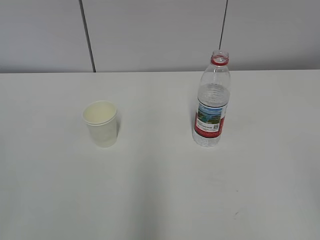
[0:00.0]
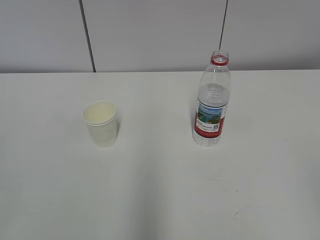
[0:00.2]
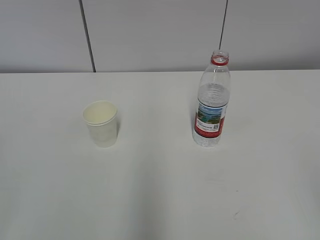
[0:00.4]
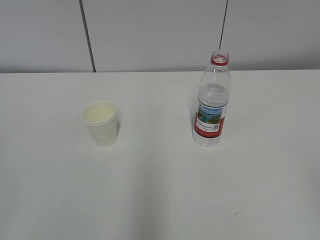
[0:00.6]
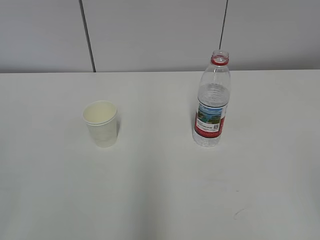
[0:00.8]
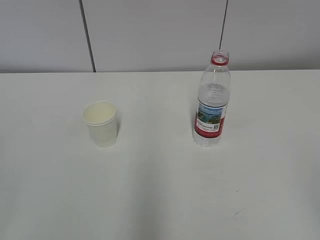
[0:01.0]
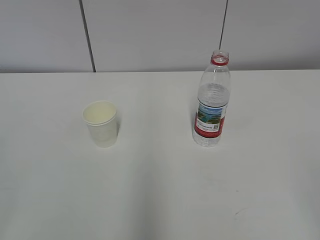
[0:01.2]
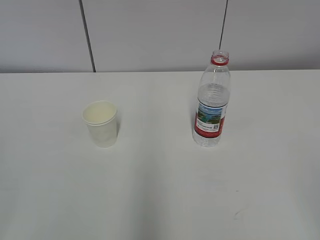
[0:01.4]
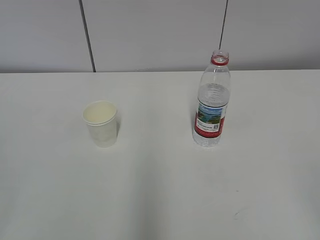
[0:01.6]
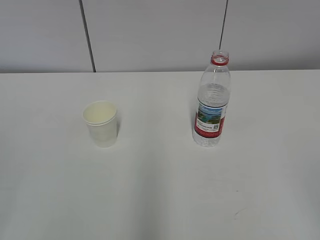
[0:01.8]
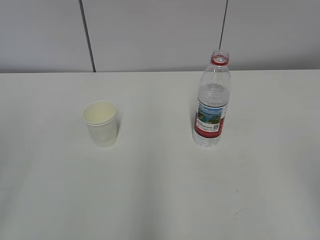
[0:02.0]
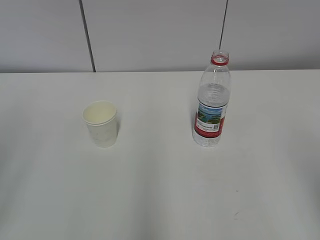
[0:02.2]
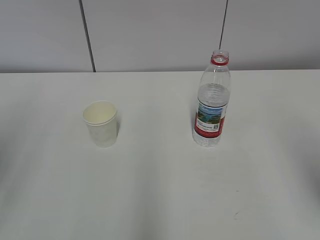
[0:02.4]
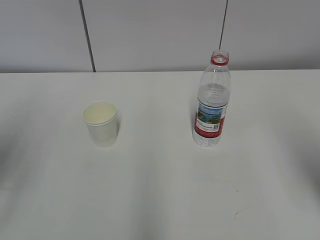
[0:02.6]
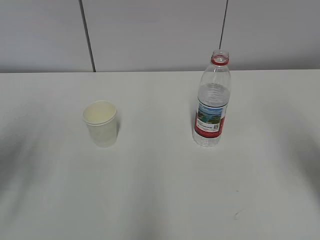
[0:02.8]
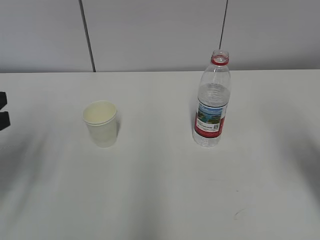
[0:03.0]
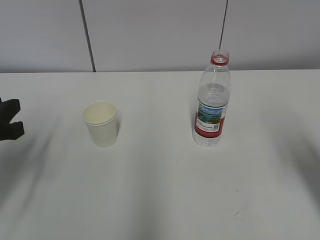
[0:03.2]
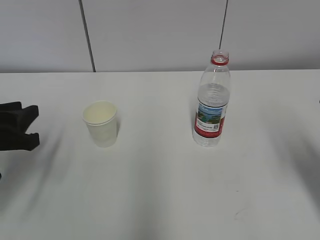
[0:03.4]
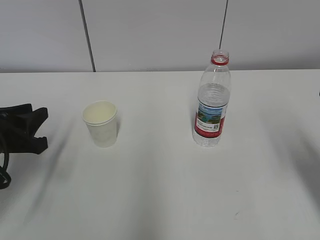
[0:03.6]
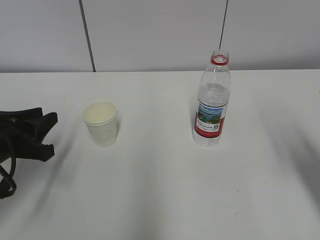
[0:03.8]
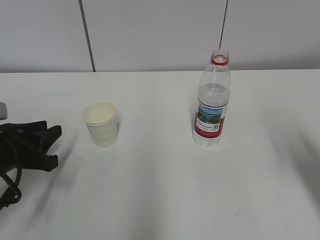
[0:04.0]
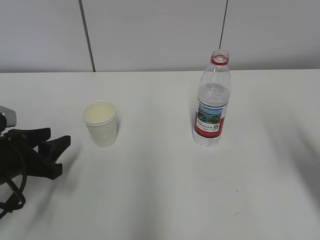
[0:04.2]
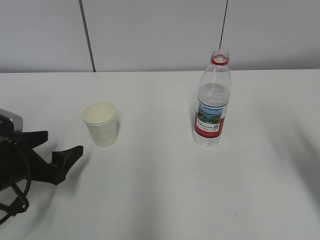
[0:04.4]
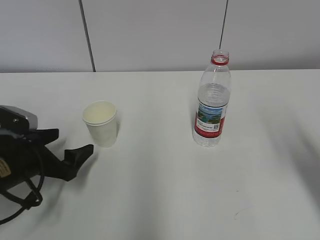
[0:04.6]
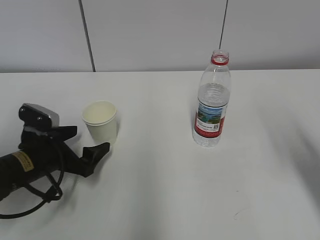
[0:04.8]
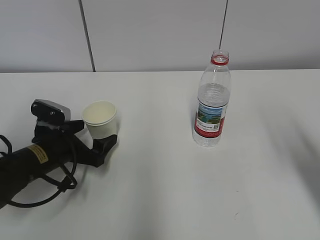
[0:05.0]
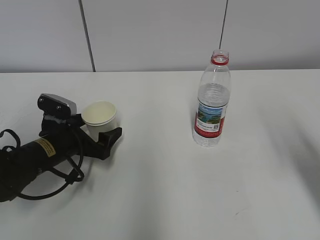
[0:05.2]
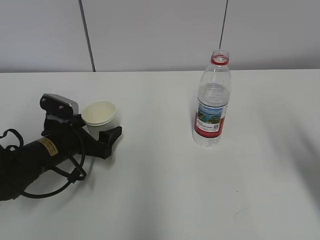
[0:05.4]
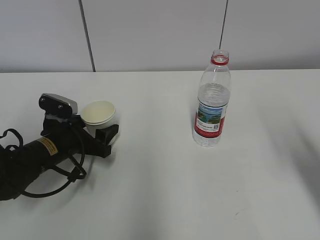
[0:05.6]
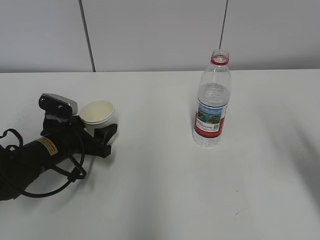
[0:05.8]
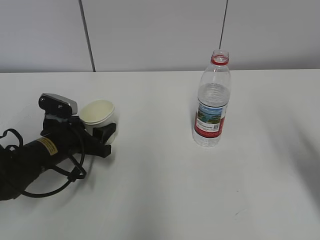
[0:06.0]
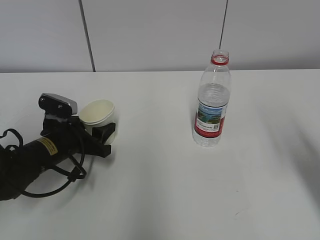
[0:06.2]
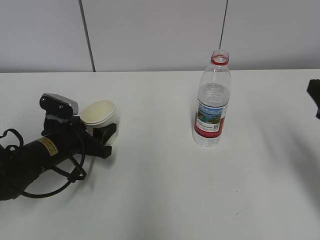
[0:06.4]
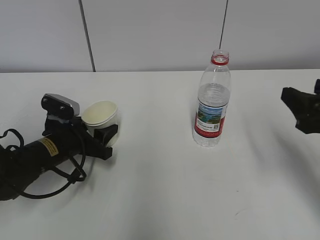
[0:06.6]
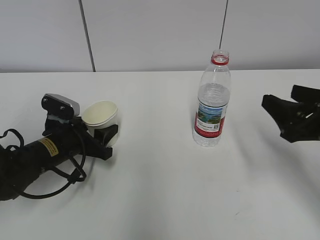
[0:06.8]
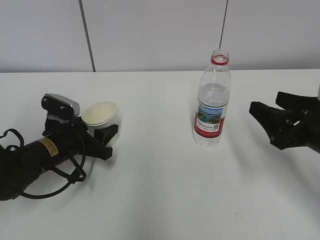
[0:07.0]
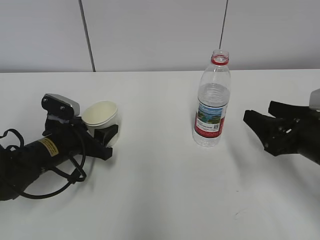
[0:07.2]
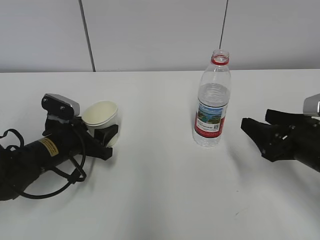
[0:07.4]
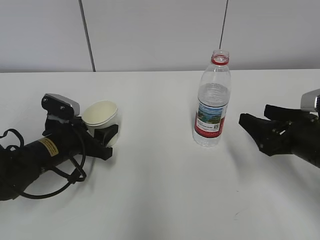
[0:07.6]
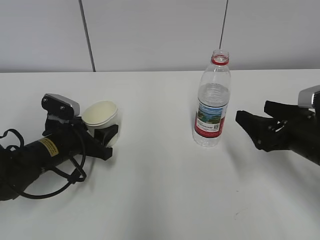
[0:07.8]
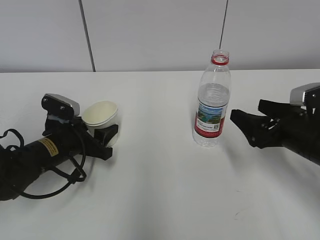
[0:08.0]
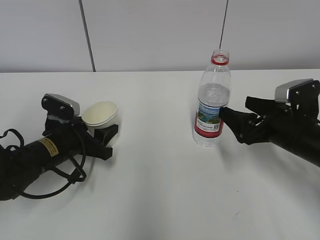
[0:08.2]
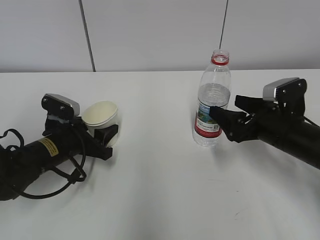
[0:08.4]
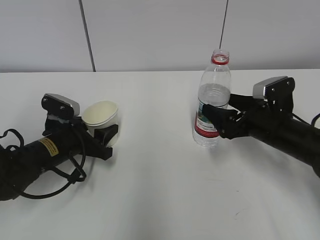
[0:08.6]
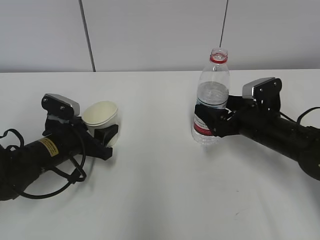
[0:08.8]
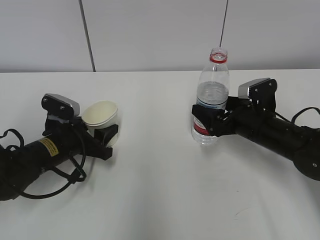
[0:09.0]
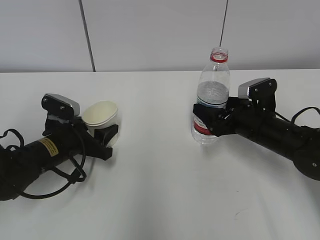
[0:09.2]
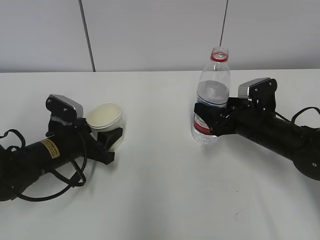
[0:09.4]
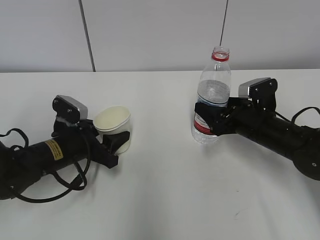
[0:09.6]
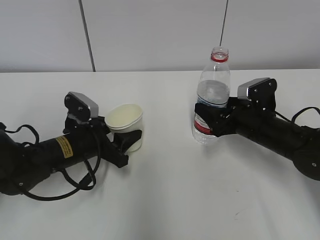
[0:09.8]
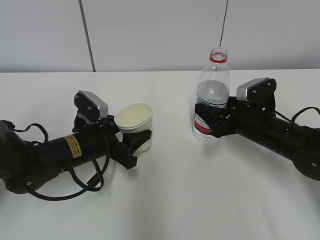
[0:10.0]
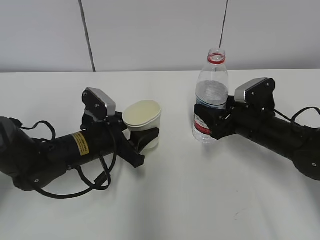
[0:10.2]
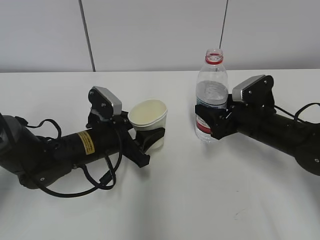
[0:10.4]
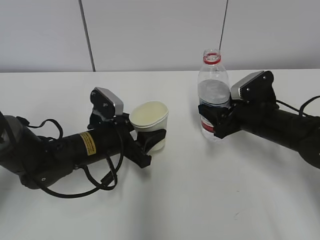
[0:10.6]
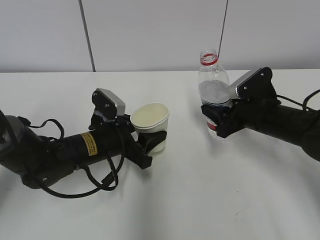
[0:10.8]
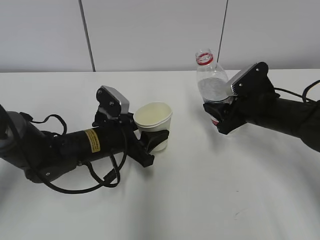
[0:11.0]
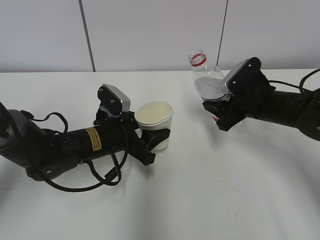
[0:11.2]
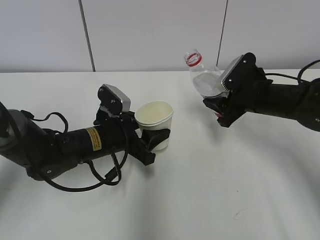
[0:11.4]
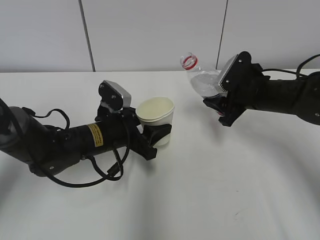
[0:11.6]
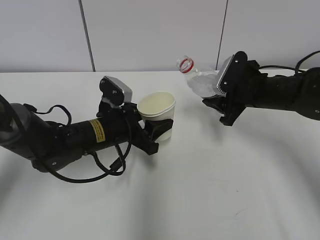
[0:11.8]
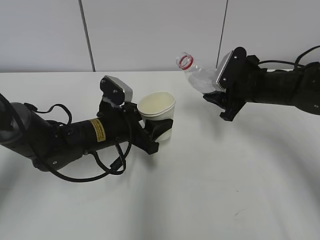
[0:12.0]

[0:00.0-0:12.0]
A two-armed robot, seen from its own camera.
Step, 0:00.0 to 0:07.6: Grab the paper cup with the left hand.
Step, 0:07.8 to 0:08.6: Grab the water bottle with the right hand.
0:01.6 to 0:03.0: The two grippers go about 20 cm forward.
0:03.0 to 0:04.4: The left gripper shifts some 10 cm downward, and opens up.
0:04.4 to 0:06.0: The left gripper shifts some 10 cm forward and to the right, and closes up.
0:06.0 to 0:07.6: The right gripper goes some 10 cm downward and forward.
0:07.6 to 0:09.0: The right gripper travels forward by some 10 cm, and opens.
0:09.0 to 0:10.4: The right gripper closes its fingers, while the left gripper travels to the right by roughly 5 cm.
0:10.4 to 0:12.0: The right gripper moves upward and forward, some 10 cm.

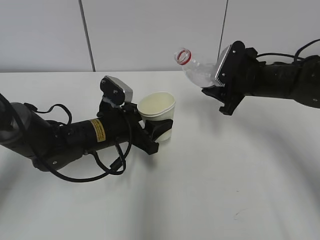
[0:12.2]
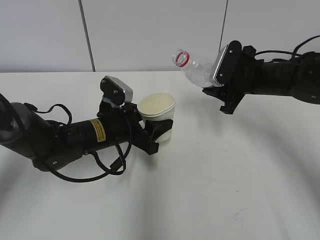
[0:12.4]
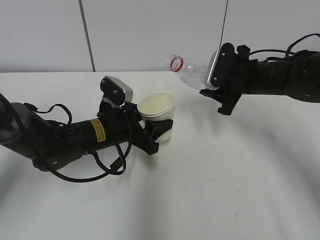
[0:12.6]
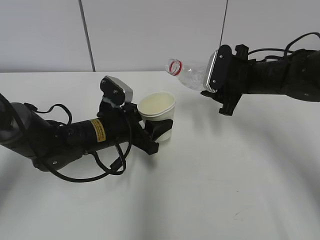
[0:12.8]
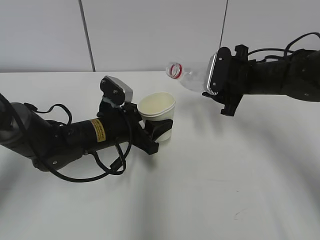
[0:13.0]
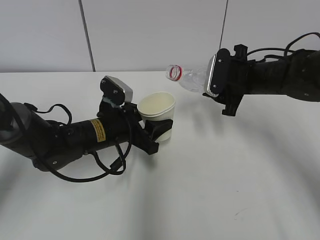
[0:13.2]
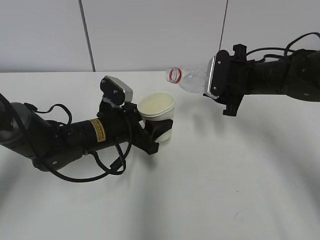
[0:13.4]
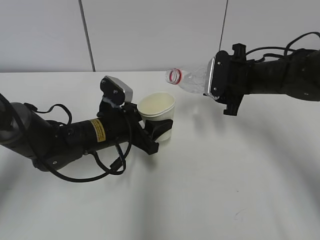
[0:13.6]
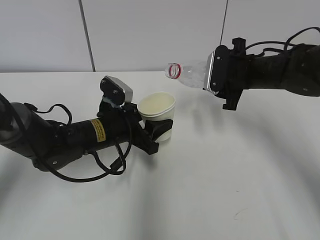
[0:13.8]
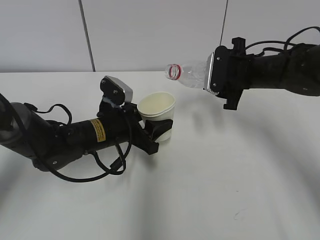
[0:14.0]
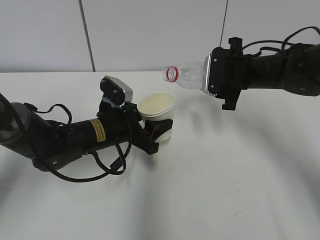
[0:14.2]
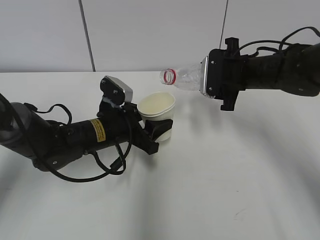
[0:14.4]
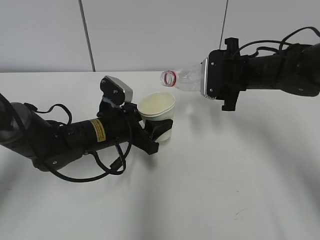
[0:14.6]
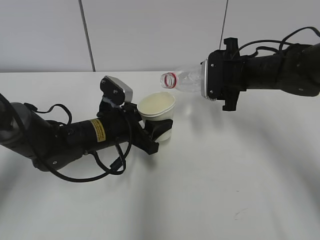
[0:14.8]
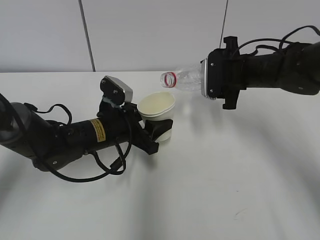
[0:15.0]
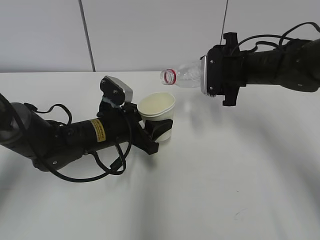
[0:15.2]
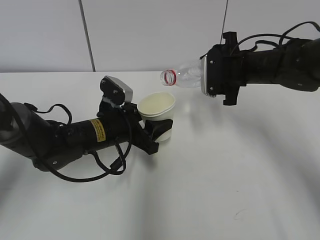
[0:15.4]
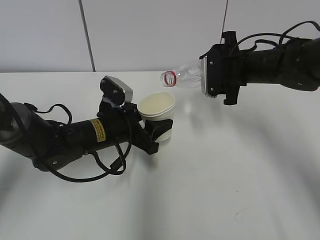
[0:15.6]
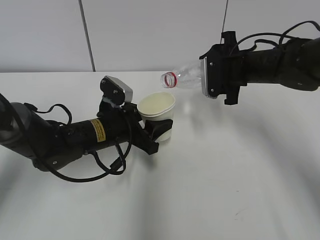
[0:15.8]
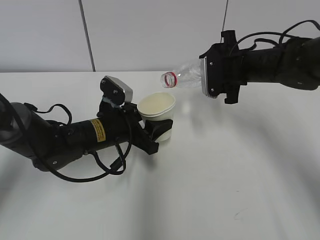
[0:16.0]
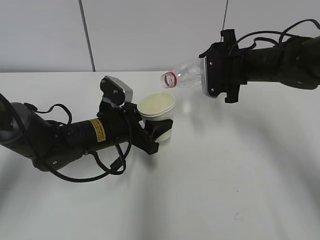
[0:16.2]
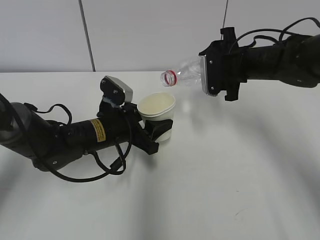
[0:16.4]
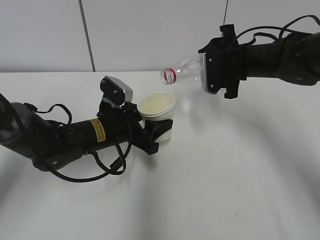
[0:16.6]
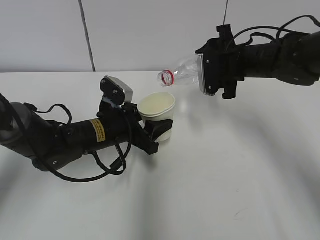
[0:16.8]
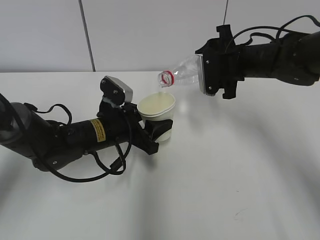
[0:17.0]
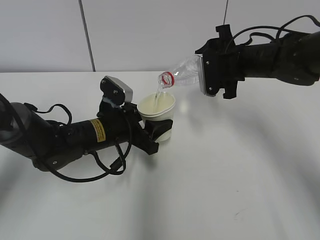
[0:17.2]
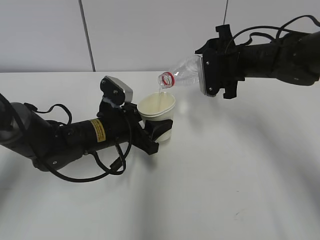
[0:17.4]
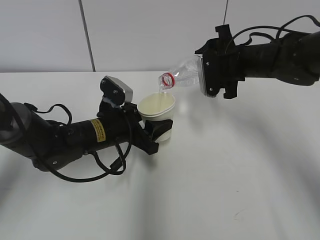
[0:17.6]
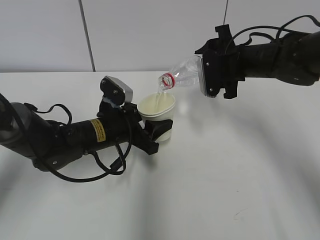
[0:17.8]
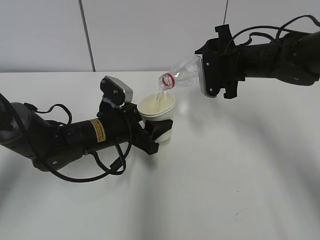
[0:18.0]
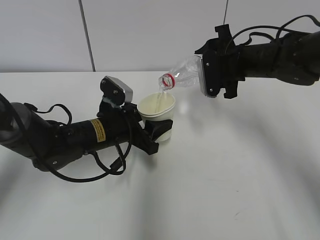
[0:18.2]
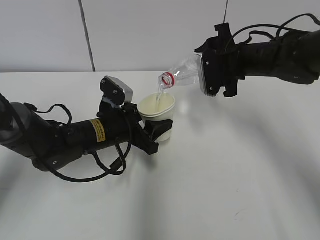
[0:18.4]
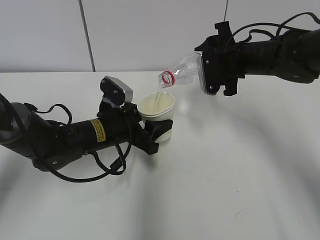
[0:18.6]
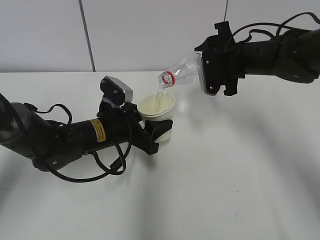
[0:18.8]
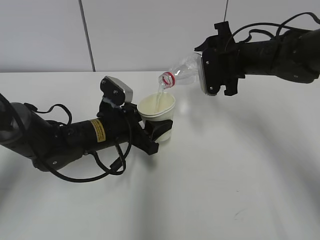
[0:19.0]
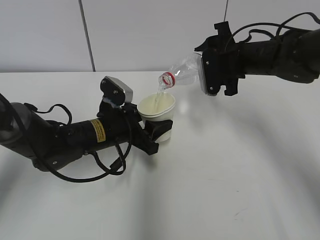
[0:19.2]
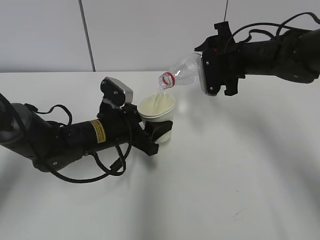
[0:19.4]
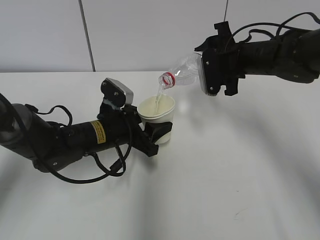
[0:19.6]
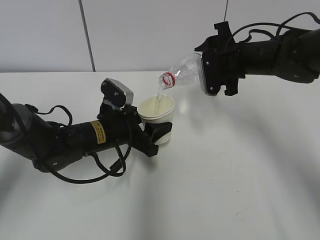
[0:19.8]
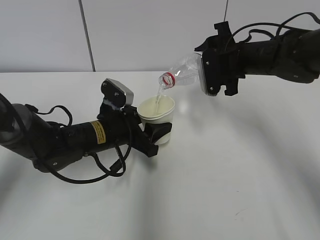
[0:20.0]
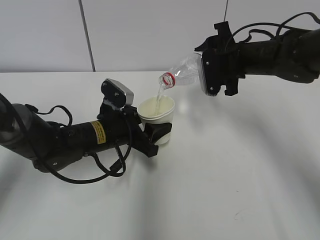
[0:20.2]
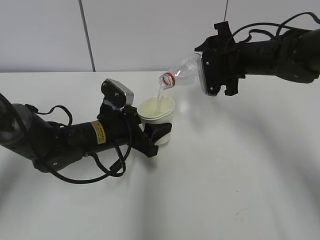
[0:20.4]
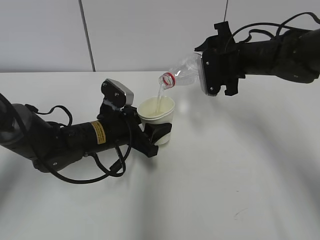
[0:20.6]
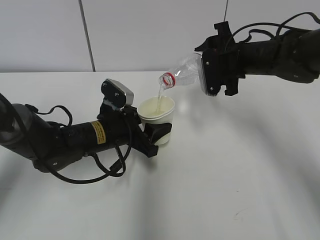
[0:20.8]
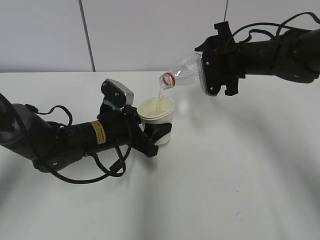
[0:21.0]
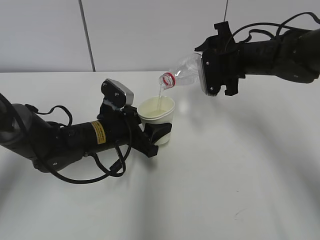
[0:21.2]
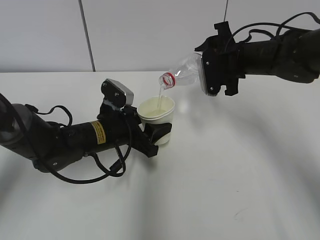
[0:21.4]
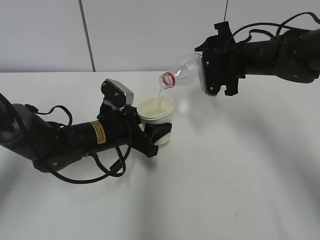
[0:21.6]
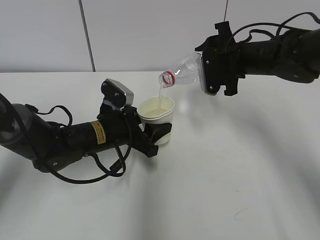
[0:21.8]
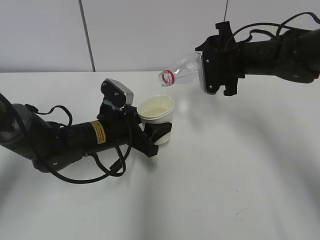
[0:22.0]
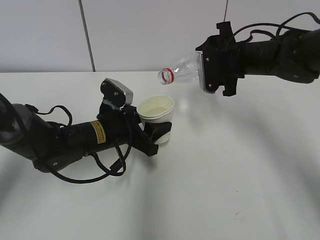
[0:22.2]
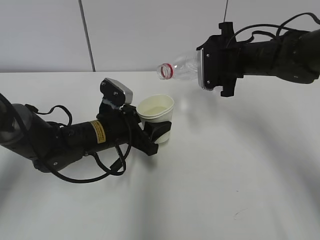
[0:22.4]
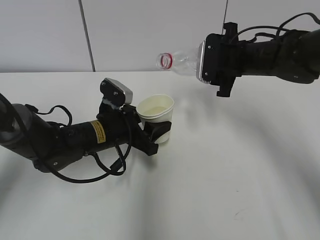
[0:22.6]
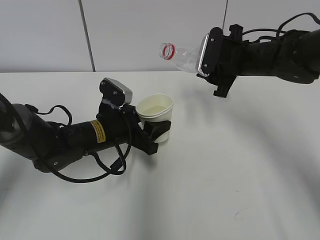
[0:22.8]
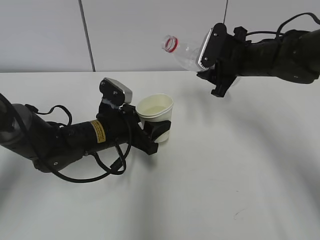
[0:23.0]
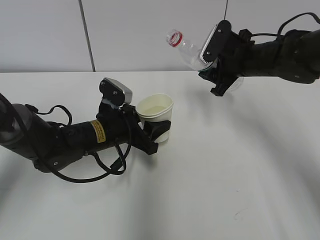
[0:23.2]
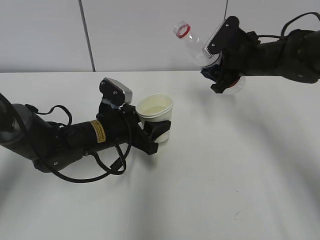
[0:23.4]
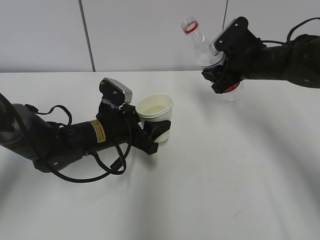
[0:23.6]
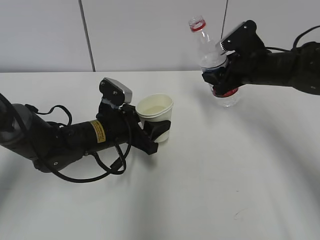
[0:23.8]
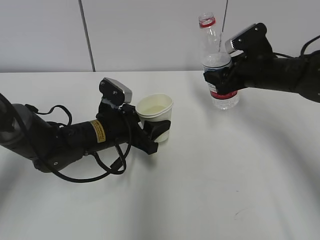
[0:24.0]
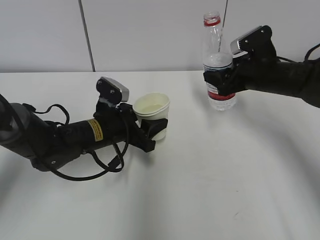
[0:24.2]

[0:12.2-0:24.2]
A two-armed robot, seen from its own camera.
Step, 0:14.2 to 0:18.6: Pour water with the right hand.
Step, 0:21.2 to 0:22.6: Place the paper cup with the left hand.
0:13.8 to 0:16.6: The grippers stay close to where they were, moving slightly.
0:16.6 to 0:18.2: The two grippers keep their place.
0:18.2 to 0:21.2: The two grippers keep their place.
0:22.6 to 0:24.2: The right gripper ends up about 5 cm from where it was.
